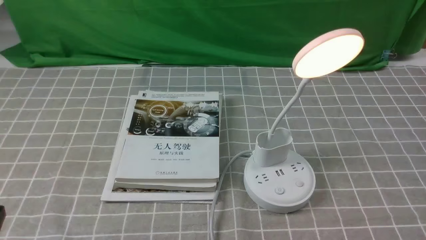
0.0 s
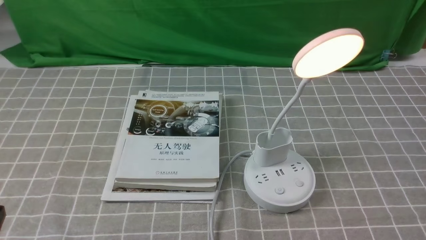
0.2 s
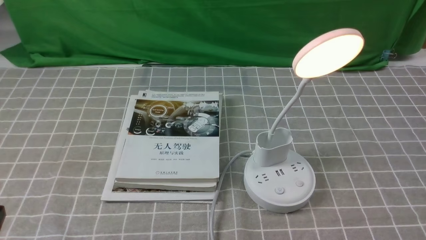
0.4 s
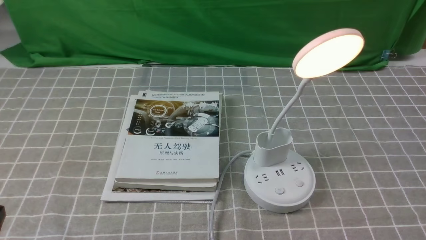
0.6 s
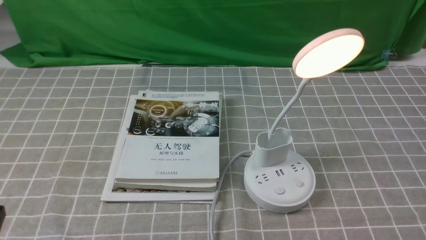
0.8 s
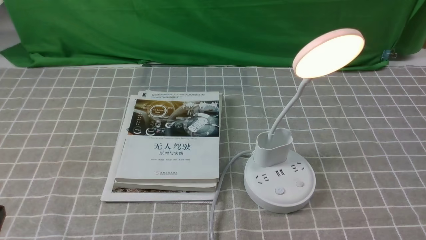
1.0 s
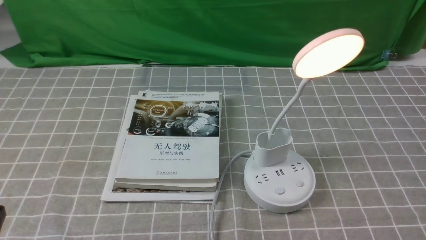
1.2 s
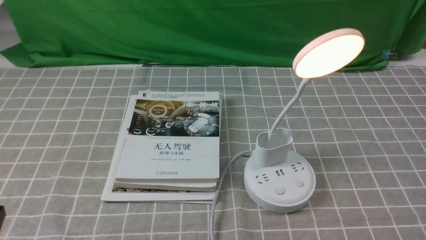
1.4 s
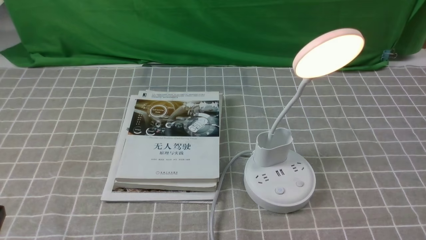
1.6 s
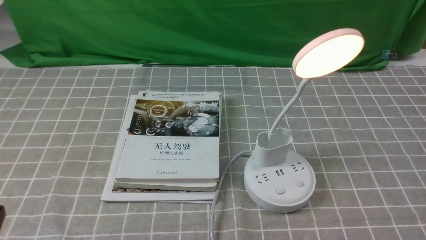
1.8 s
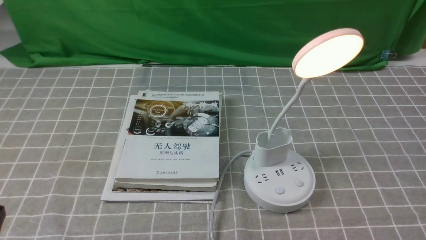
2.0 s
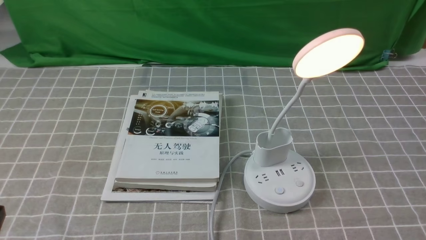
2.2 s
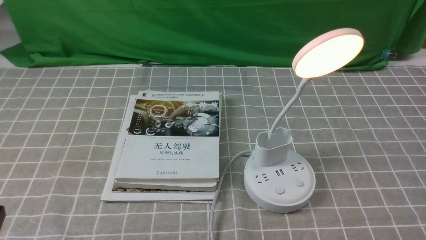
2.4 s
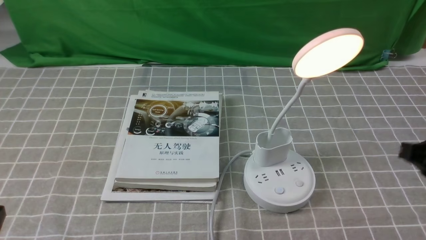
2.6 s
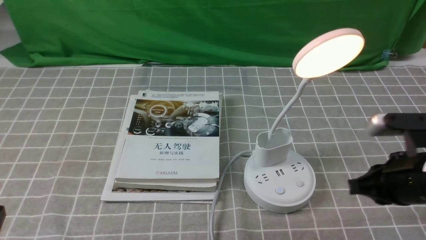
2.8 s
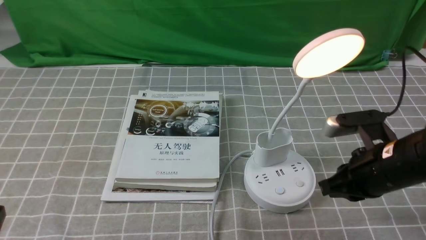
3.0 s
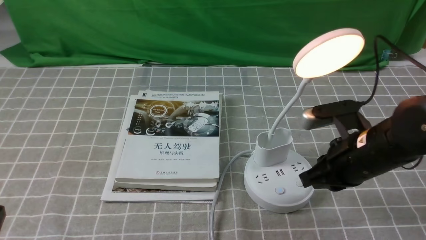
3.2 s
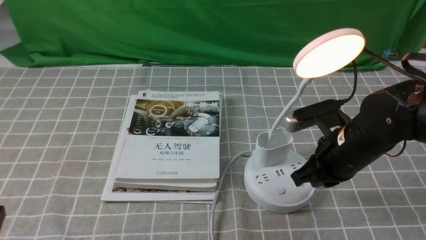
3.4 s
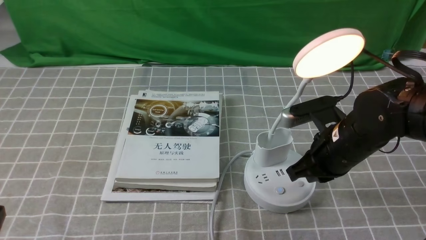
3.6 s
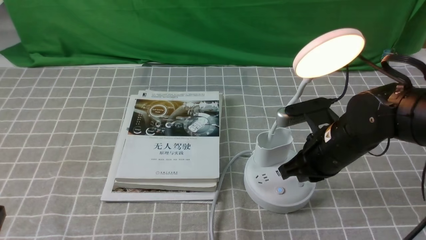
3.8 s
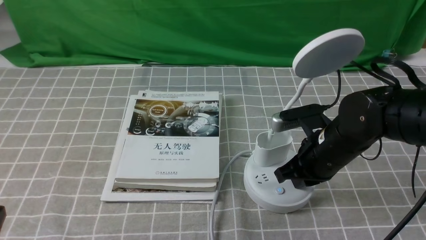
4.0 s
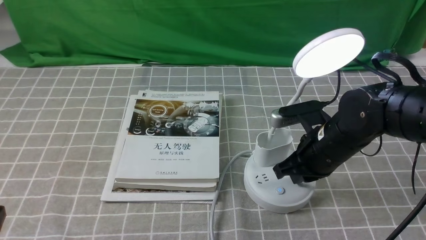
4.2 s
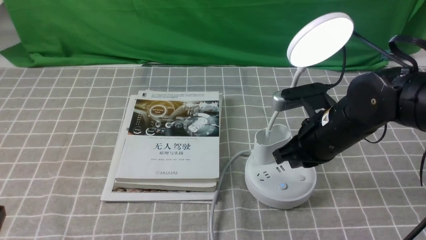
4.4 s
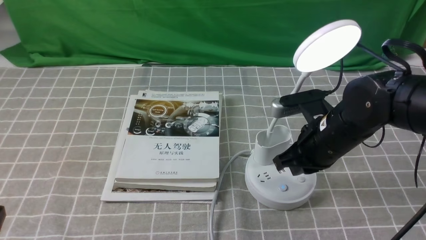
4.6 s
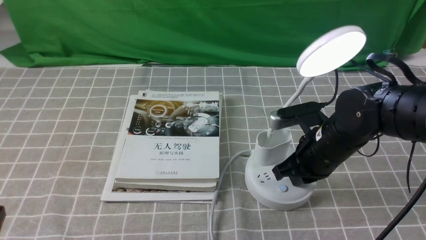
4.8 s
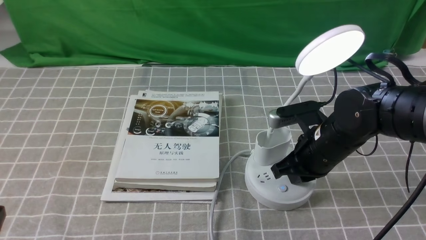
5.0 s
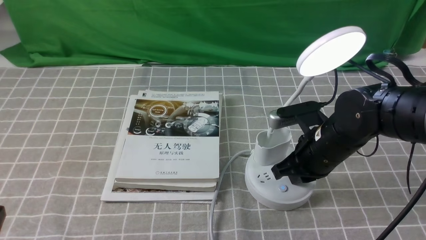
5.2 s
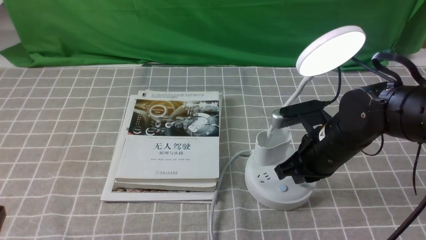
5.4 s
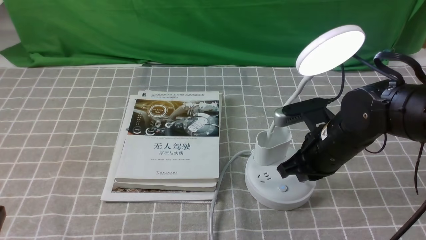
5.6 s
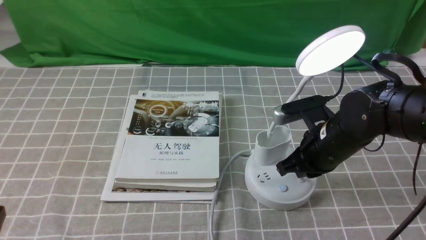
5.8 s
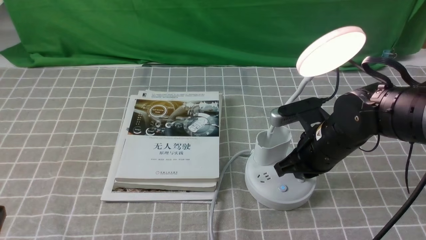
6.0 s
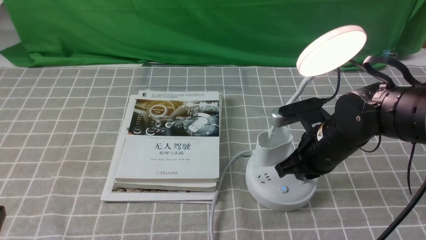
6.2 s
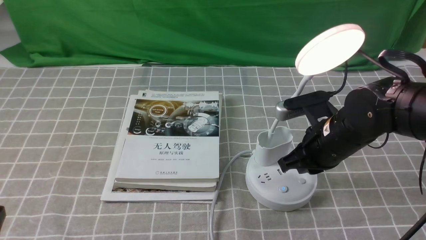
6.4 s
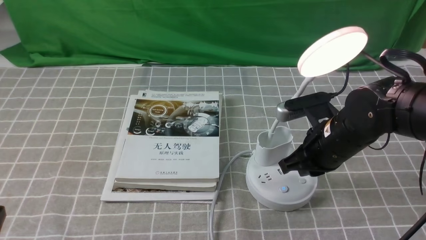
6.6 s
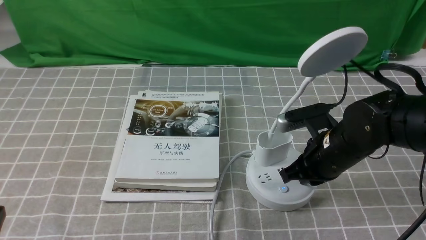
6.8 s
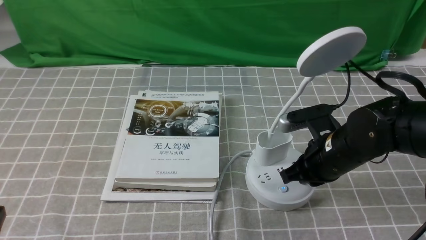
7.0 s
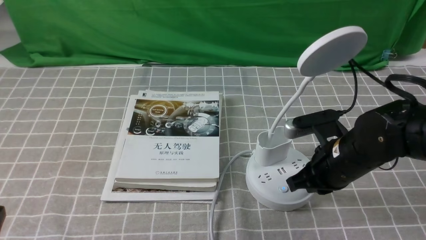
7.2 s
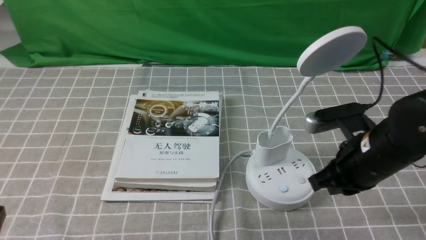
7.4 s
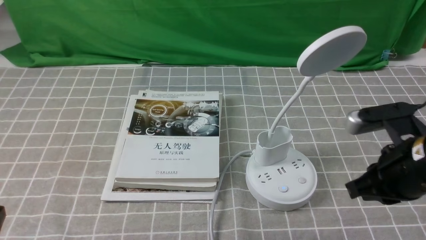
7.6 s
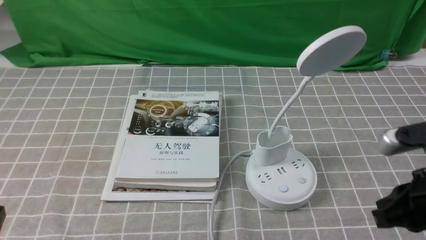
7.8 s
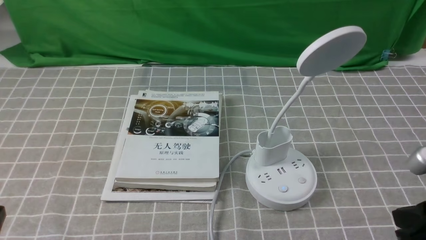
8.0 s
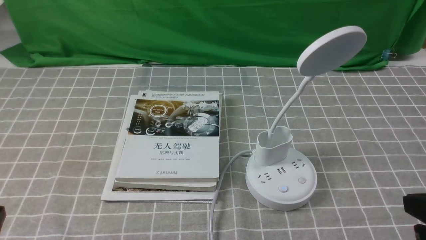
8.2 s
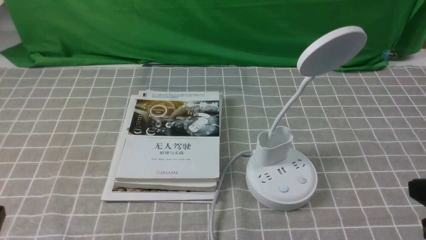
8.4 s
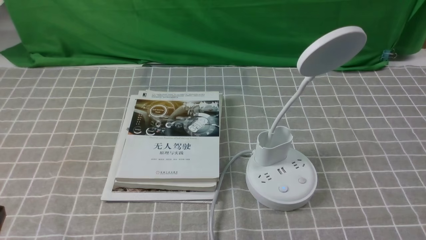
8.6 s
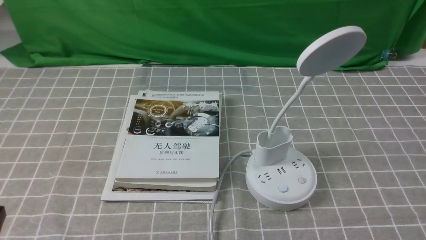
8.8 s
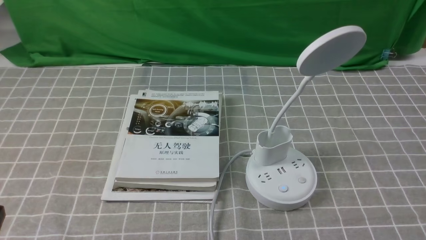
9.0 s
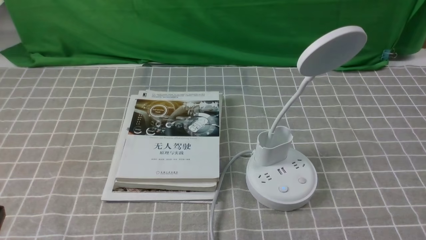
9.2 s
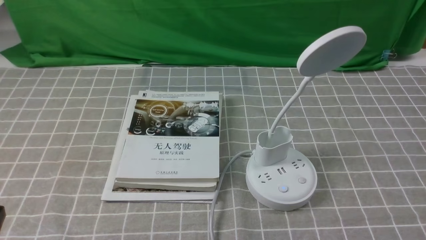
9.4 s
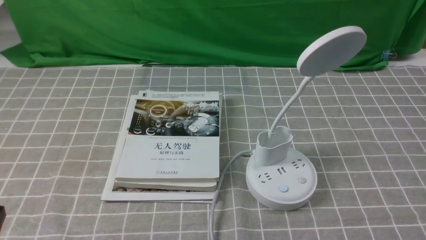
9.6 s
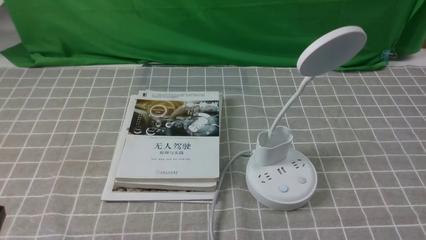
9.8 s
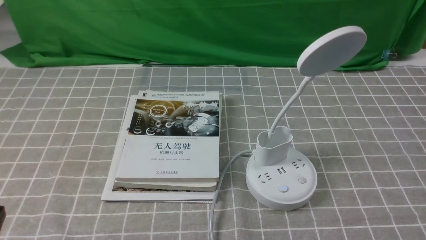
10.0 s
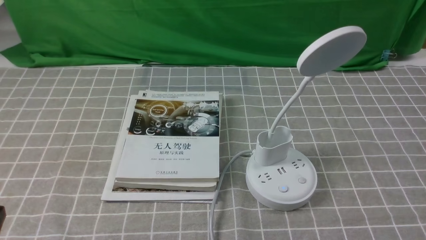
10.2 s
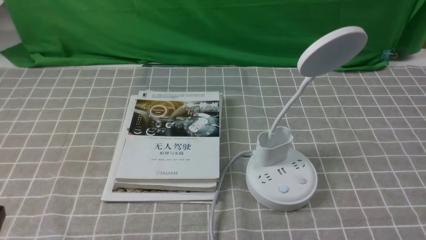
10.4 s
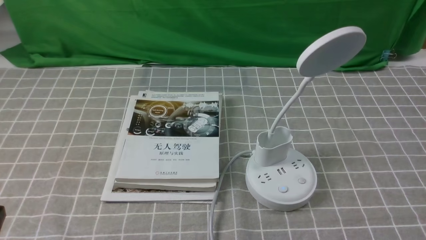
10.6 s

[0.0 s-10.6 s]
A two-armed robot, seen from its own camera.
Task of the whole recording: turn off the desk lamp on the grey coffee tablecloth by hand.
Step, 0.0 to 7.2 s: use the right arm to press the button switch on the lamp holder.
1.6 to 3.0 s: The right gripper is displaced forward and to the left by roughly 25 cm, and closes.
3.0 to 4.6 s: The right gripper moves to the left and forward, some 10 cm.
4.6 to 6.0 s: The grippers stay close to where they were, moving slightly.
6.0 to 7.6 s: The right gripper heads backward, to the right and upward, covering approximately 15 cm.
7.6 to 9.0 s: The right gripper goes roughly 15 cm backward and to the right.
9.0 to 10.6 s: The right gripper opens its fingers.
